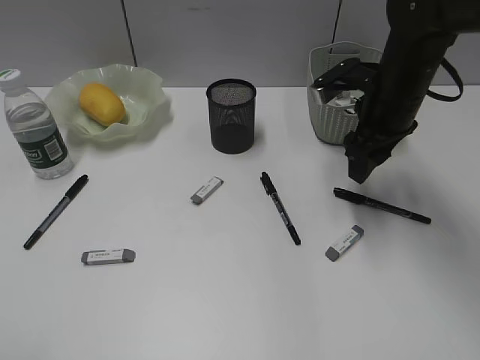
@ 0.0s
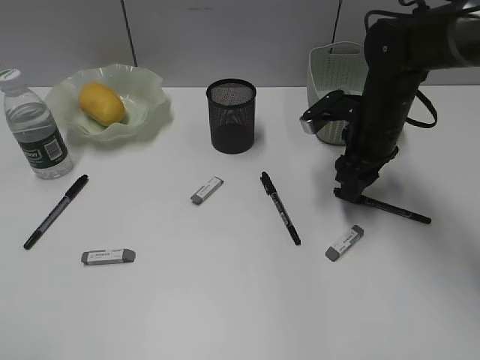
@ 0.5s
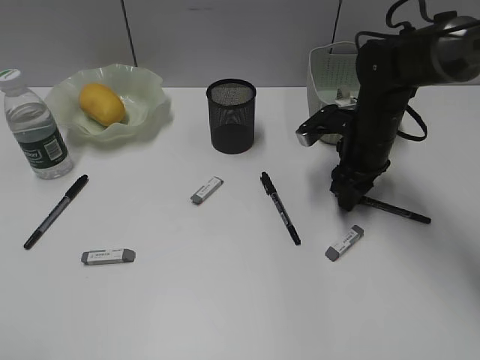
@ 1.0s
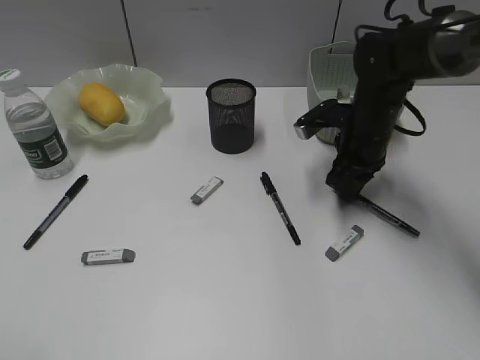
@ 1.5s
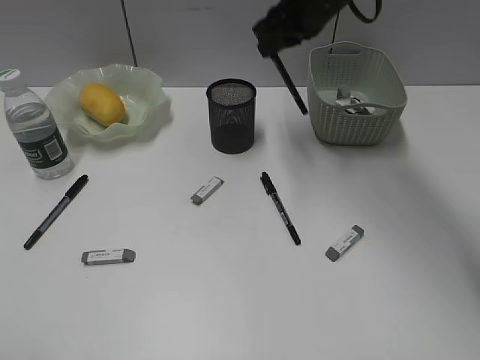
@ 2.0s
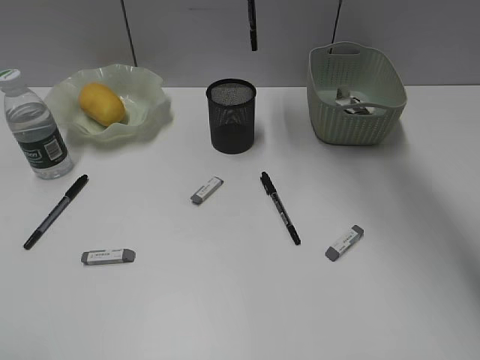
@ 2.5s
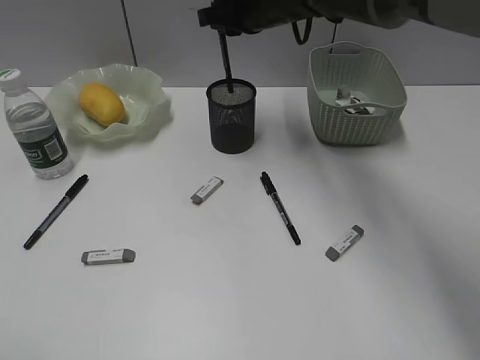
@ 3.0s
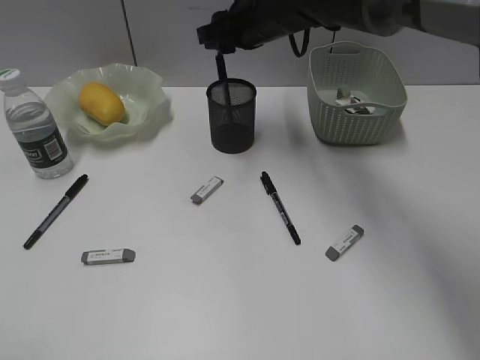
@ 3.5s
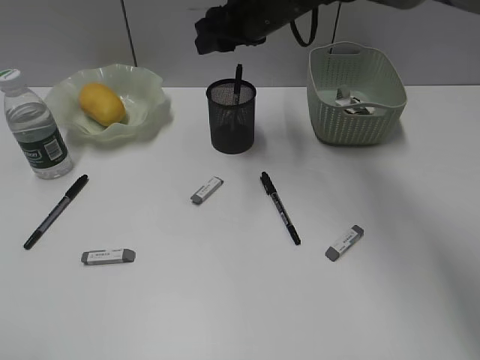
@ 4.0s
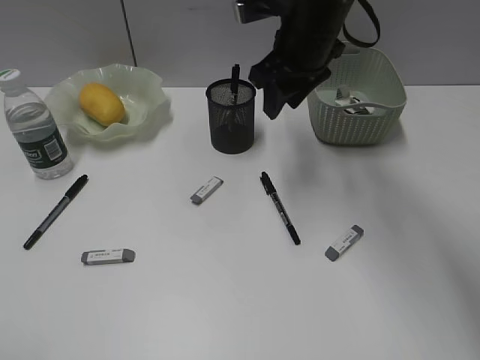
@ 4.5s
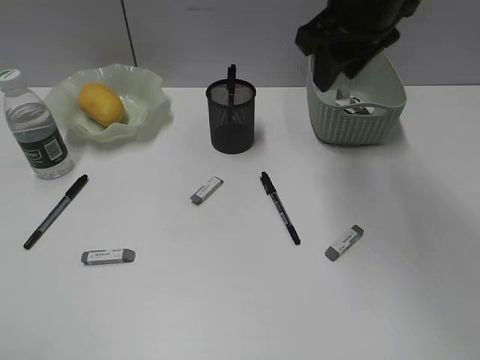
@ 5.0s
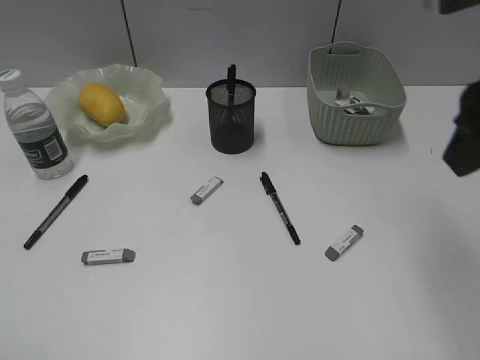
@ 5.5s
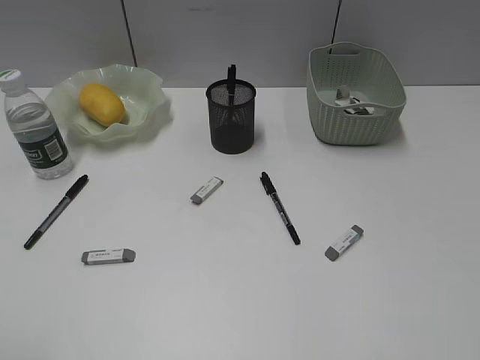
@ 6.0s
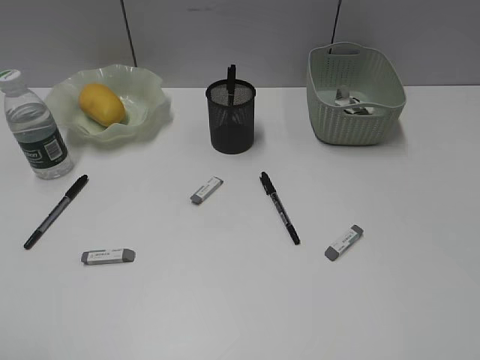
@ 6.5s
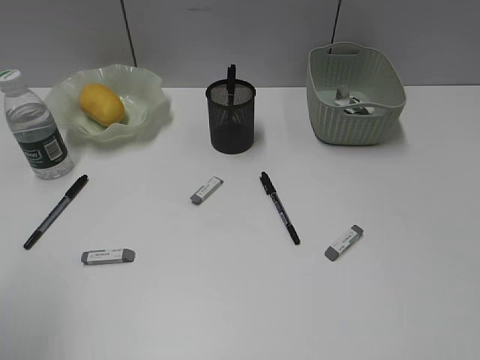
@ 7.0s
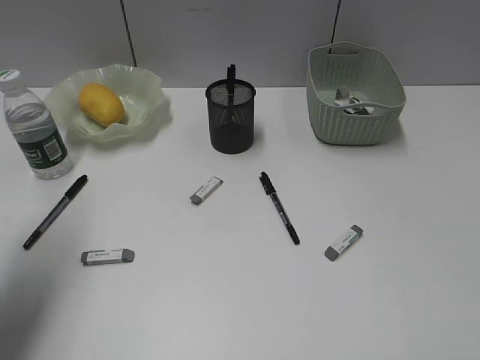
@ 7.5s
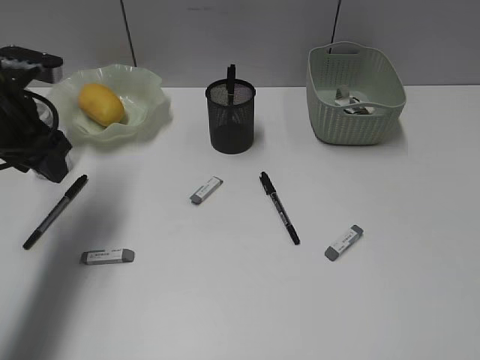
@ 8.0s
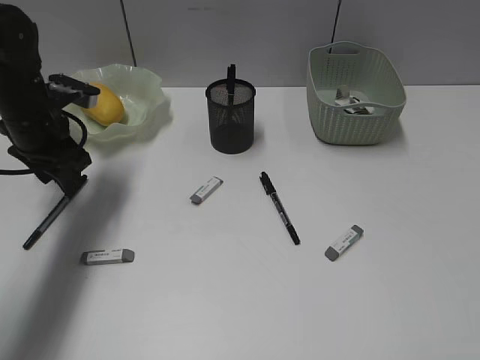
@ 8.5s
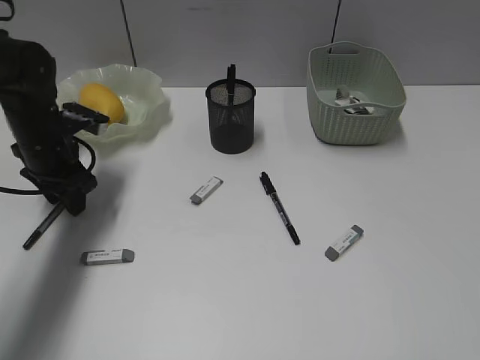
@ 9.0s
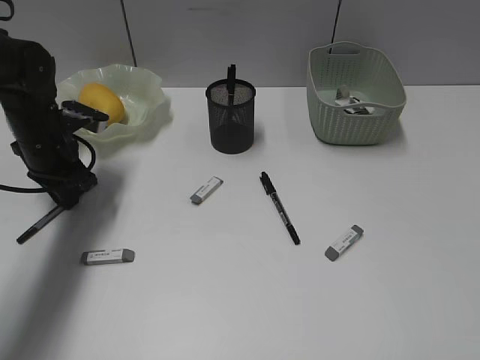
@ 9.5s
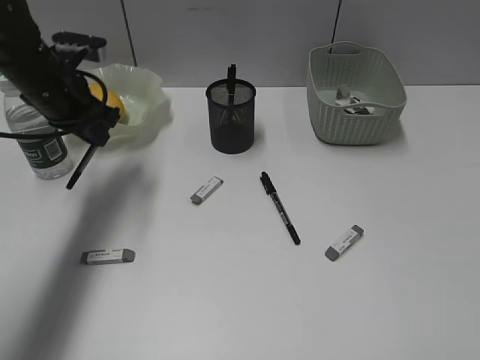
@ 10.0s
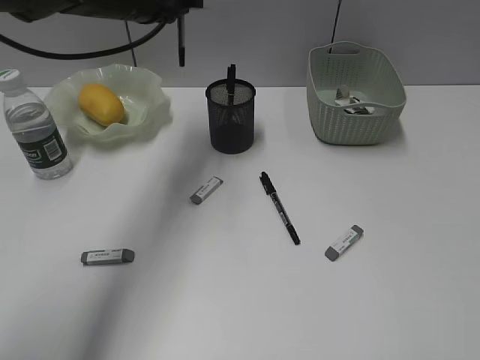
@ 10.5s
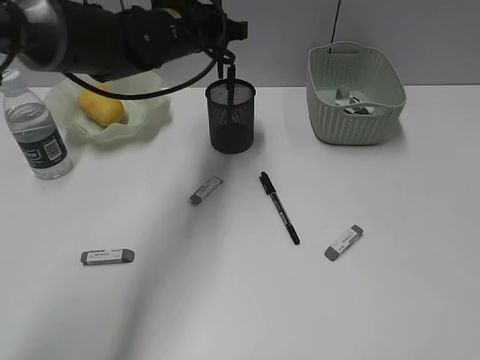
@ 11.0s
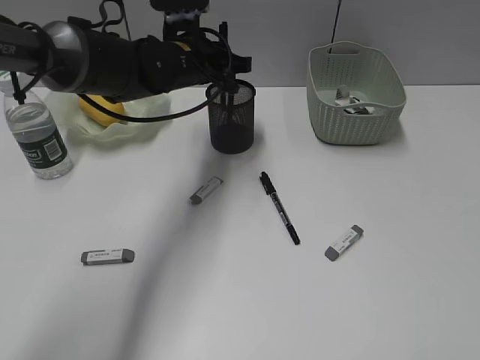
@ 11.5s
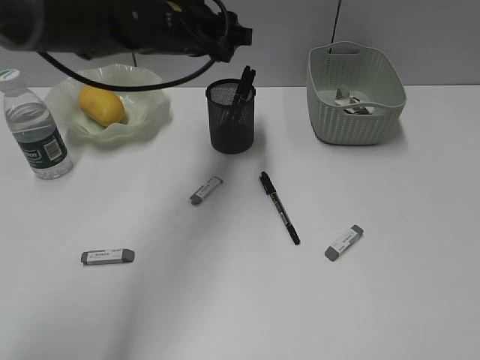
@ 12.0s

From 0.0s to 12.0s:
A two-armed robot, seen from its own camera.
Step, from 1.5s to 3.5s: Place the black pen in pen holder with right gripper.
Step, from 4.0s to 9.5s: Grasp the black pen with left gripper.
Step, from 10.0s to 11.5s: Place the black pen in pen holder with left gripper.
From 0.0s to 2.0s: The right gripper travels upward, to the left and forward by roughly 15 cm, and closes its fingers.
From 2.0s to 4.0s: The right gripper heads to the left, covering about 5 cm, reaches about 5 cm downward, then returns, and opens.
From 4.0s to 6.0s: The right gripper is displaced backward and to the right by roughly 40 cm.
From 6.0s to 8.0s: The left gripper goes approximately 30 cm forward.
From 8.0s to 10.0s: The left gripper heads forward, covering approximately 5 cm, reaches some 10 cm downward, then returns, and closes.
From 10.0s to 12.0s: The left gripper travels to the right by roughly 15 cm, and opens its fingers.

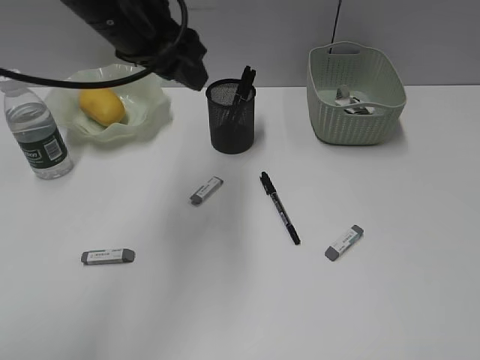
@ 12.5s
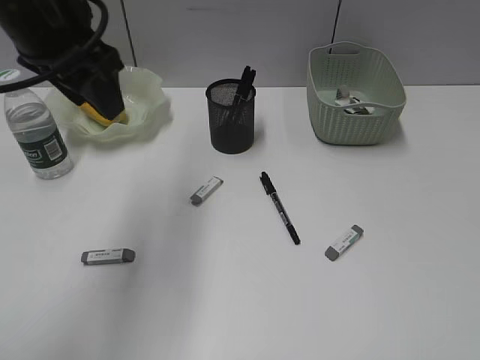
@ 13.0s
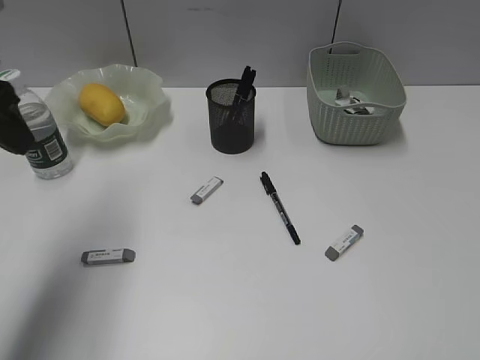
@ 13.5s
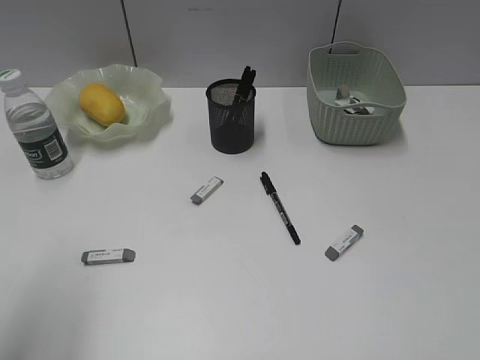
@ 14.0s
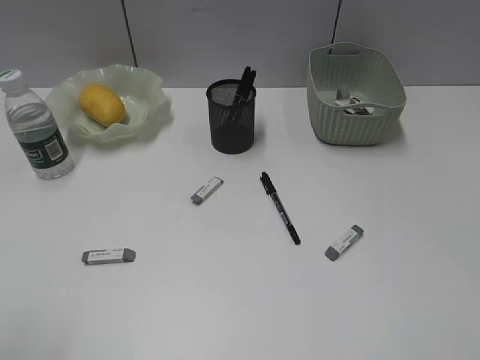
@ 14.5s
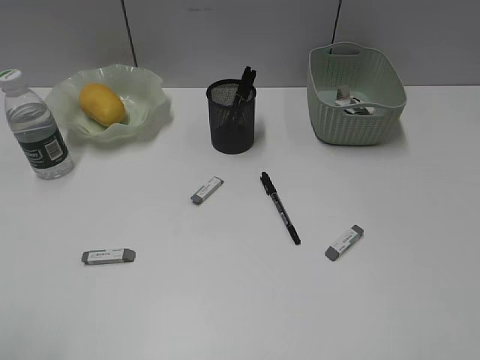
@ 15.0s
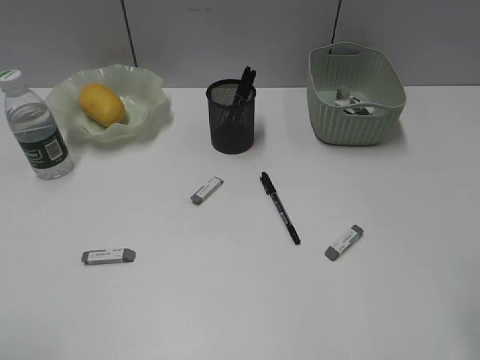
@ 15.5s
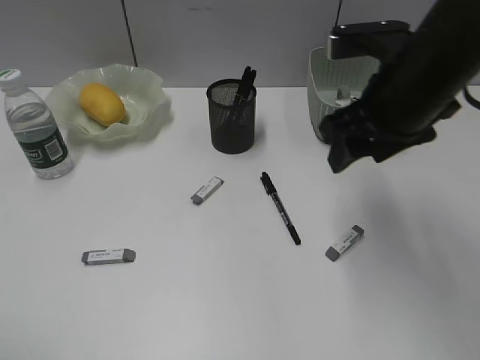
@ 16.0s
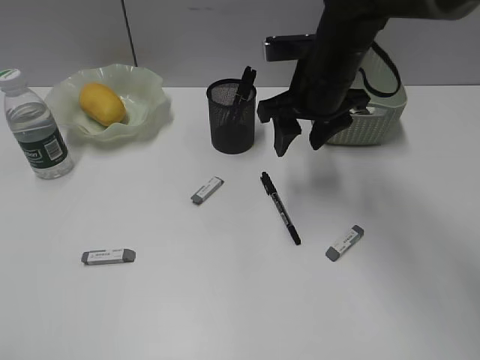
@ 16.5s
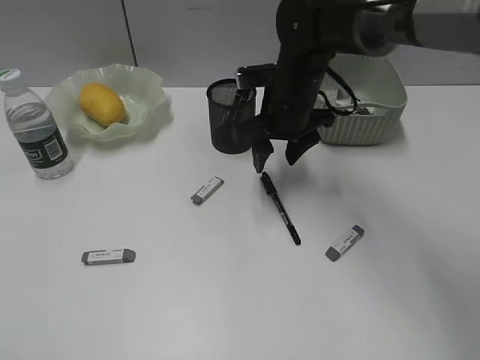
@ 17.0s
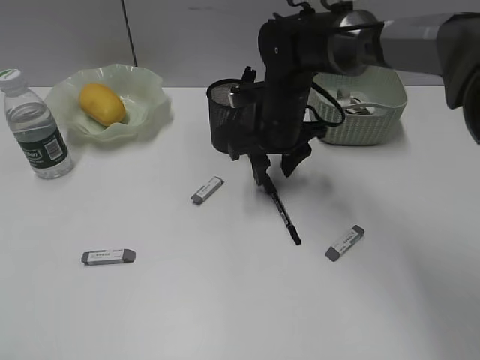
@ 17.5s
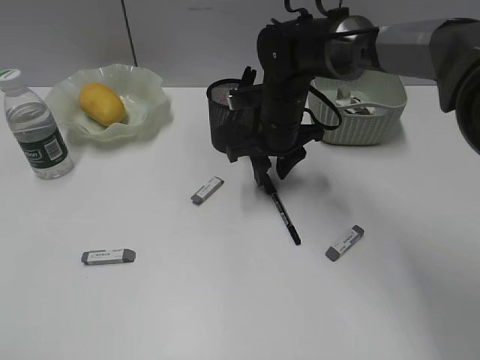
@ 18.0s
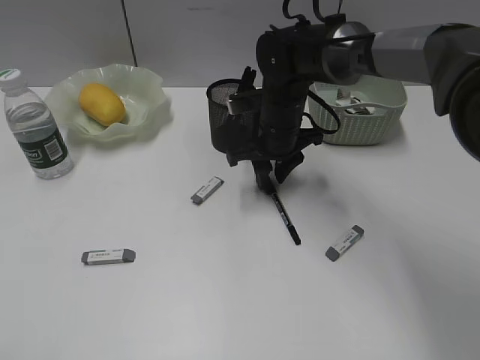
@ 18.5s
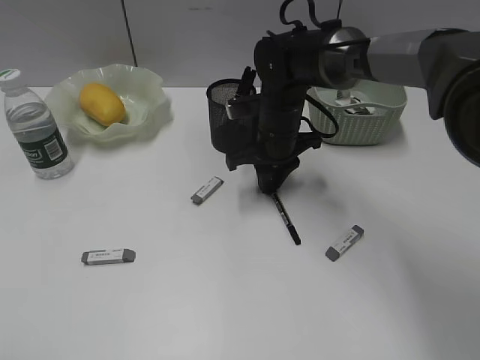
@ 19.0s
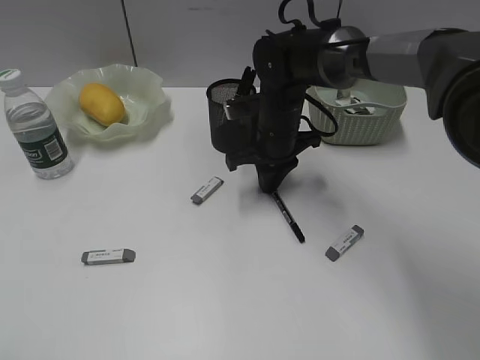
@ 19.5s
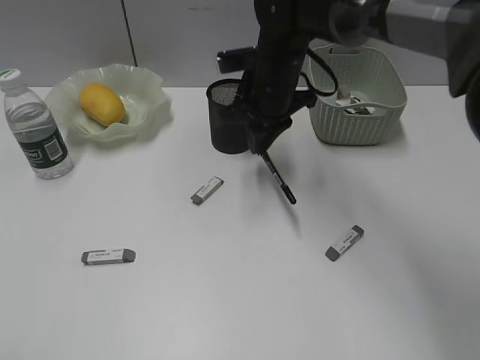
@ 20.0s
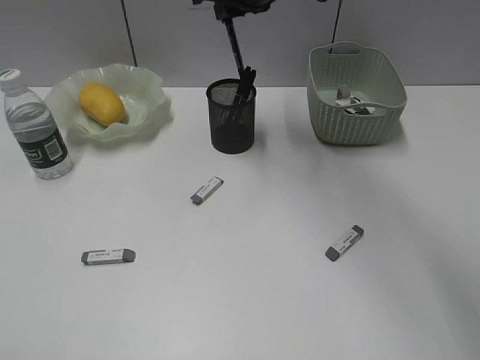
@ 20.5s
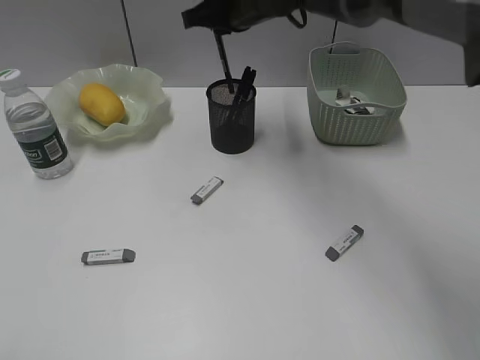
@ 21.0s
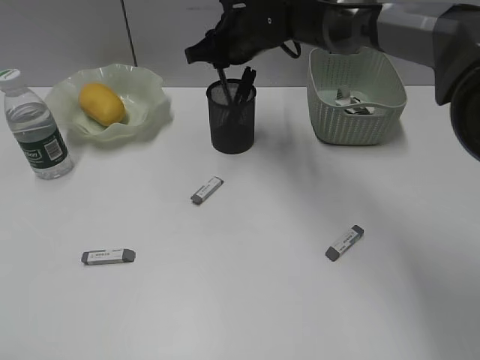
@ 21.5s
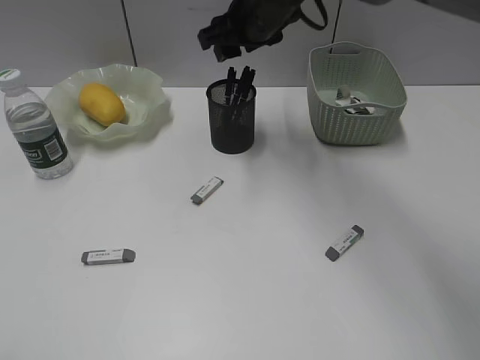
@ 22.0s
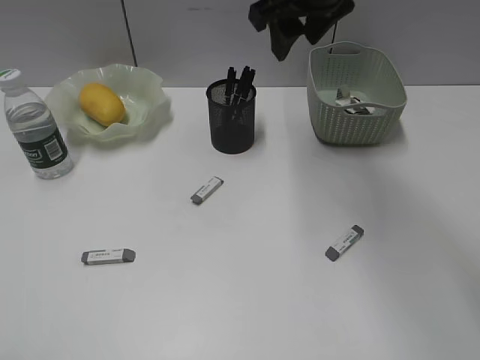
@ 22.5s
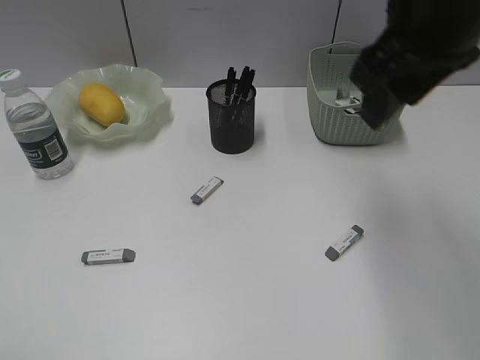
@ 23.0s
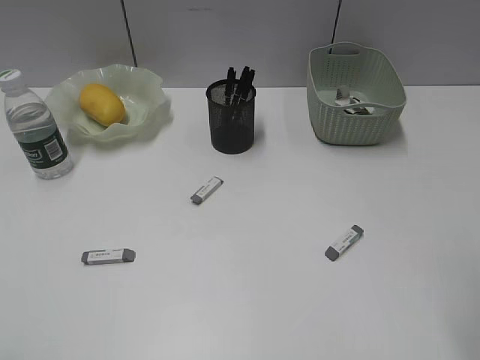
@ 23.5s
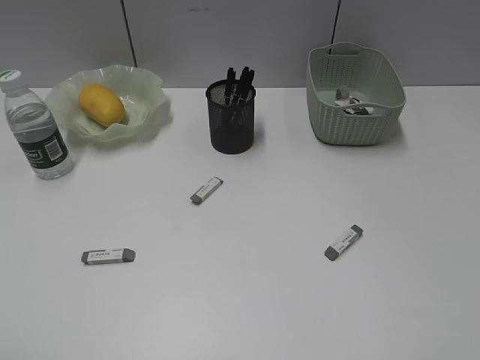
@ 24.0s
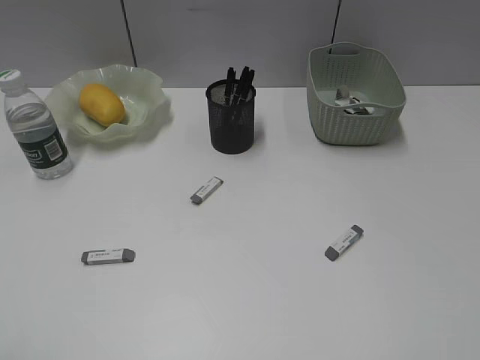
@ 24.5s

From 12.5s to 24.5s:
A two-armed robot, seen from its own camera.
Step, from 12.5s to 19.0s: Grasp the black pen with right gripper.
Step, from 19.5s to 21.5s: Place the black pen in pen holder with right gripper.
From 12.5s to 14.5s: The left gripper heads backward and to the left, covering about 35 cm.
From 14.5s to 16.5s: The left gripper changes place by roughly 5 cm; the right gripper goes about 40 cm forward and to the left.
From 16.5s to 18.5s: The right gripper is displaced downward by about 10 cm, and closes its fingers.
From 18.5s to 20.5s: The right gripper travels upward by some 20 cm, and closes its fingers.
From 20.5s to 22.5s: The right gripper goes downward and returns, approximately 10 cm each way, and opens.
From 22.5s to 24.5s: The right gripper is displaced backward and to the right by about 50 cm.

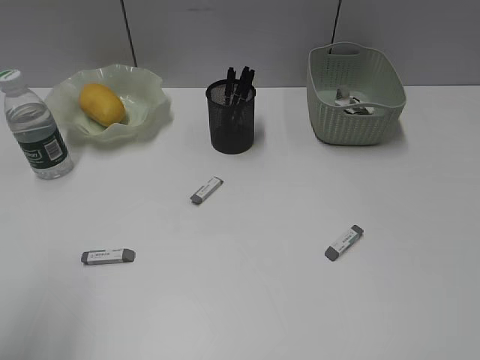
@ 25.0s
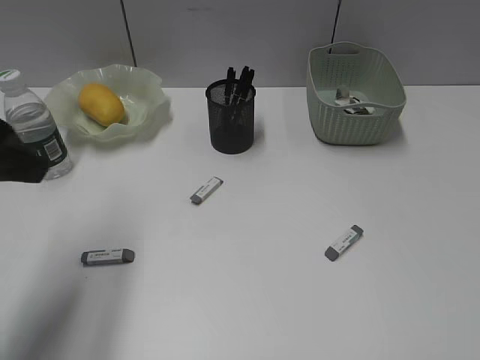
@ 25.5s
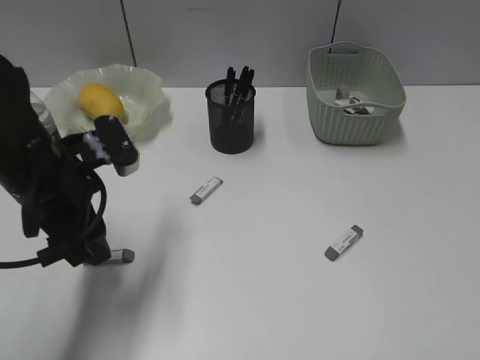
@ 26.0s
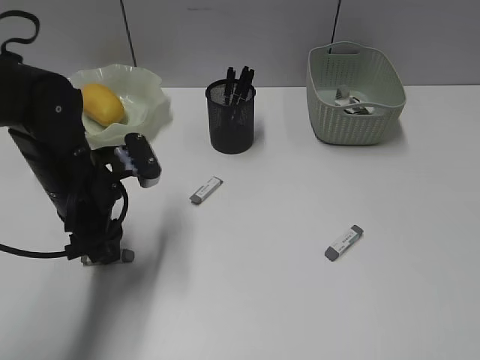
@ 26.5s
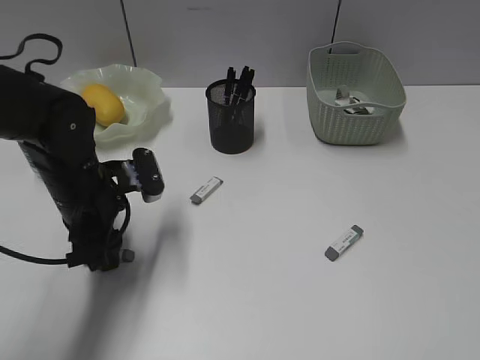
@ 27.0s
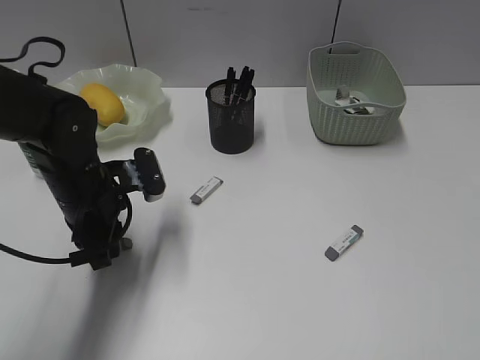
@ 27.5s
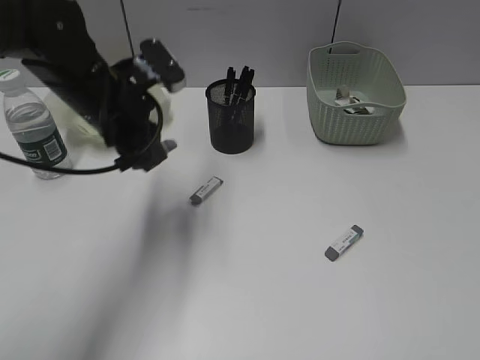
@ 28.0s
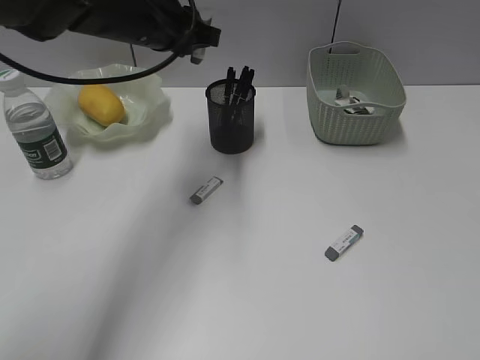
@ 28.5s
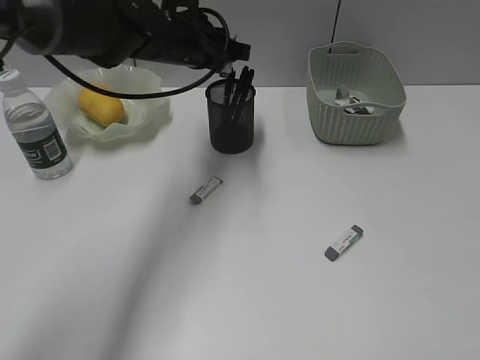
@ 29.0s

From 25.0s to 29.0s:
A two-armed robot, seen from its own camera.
Step, from 25.0s to 27.5s: Grasp the eraser with left gripper.
From 25.0s to 27.0s: The left gripper goes roughly 30 cm forward, downward and to the right.
From 27.0s to 29.0s: The left gripper travels forward, to the right and upward by roughly 20 cm, and closes.
